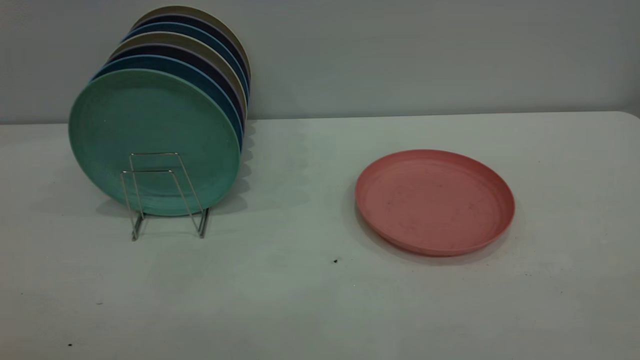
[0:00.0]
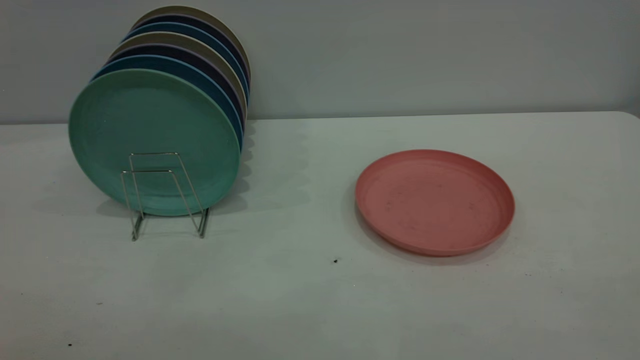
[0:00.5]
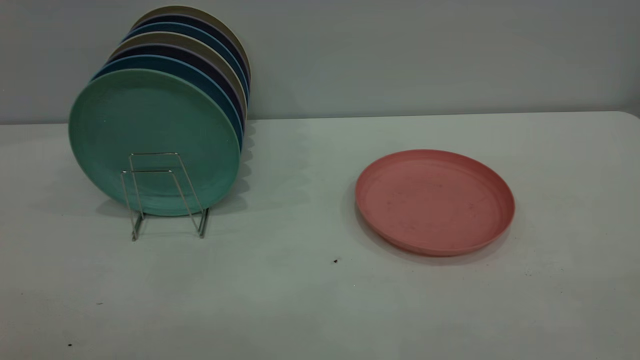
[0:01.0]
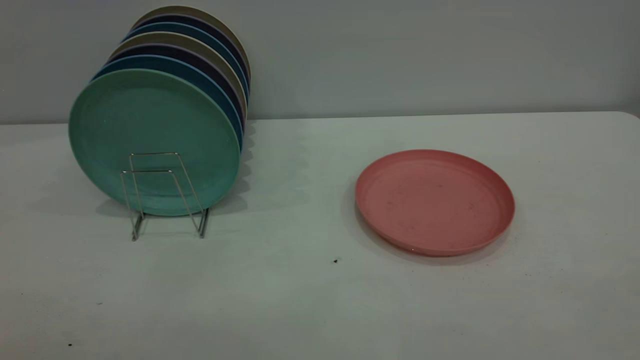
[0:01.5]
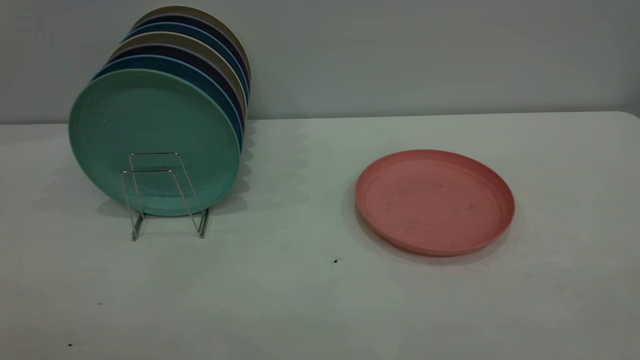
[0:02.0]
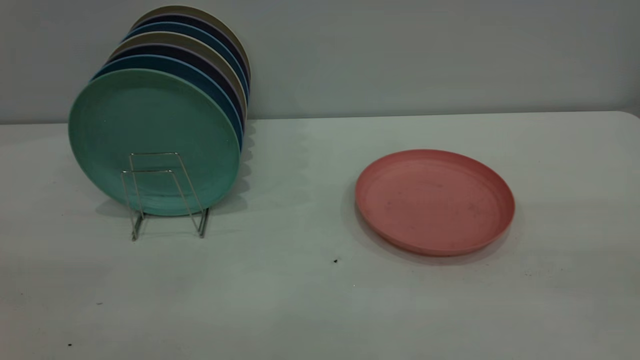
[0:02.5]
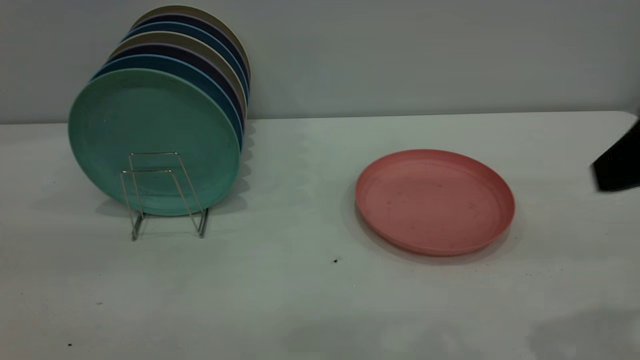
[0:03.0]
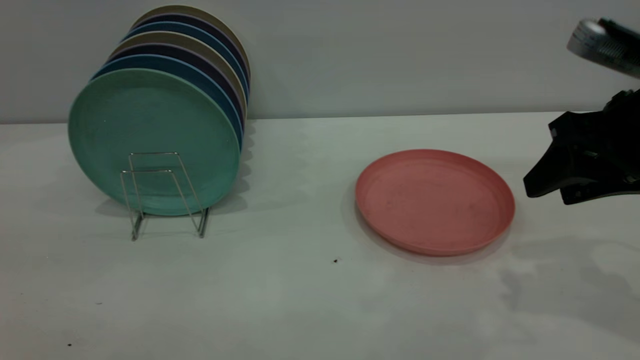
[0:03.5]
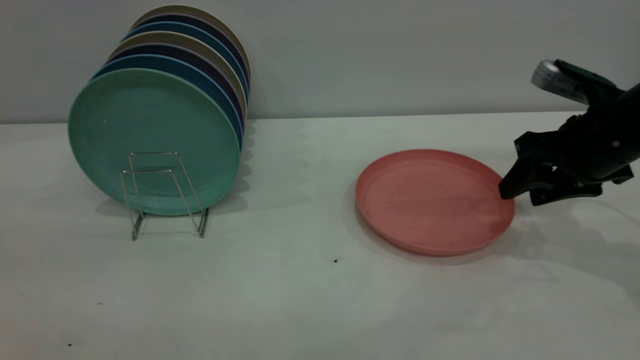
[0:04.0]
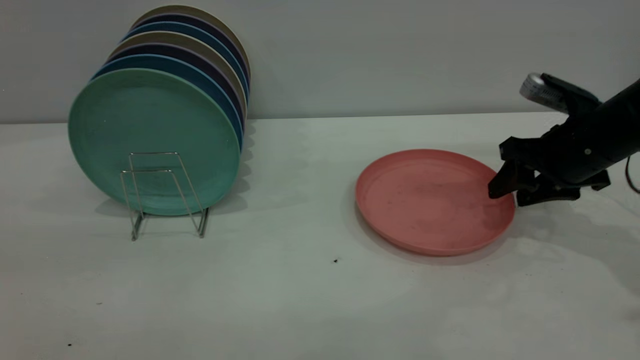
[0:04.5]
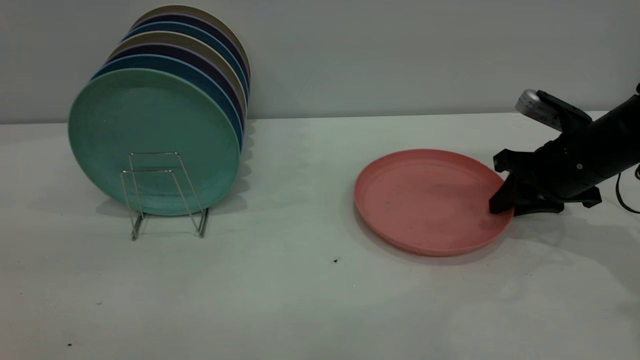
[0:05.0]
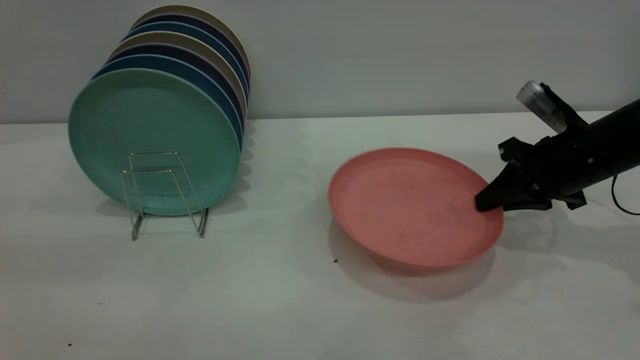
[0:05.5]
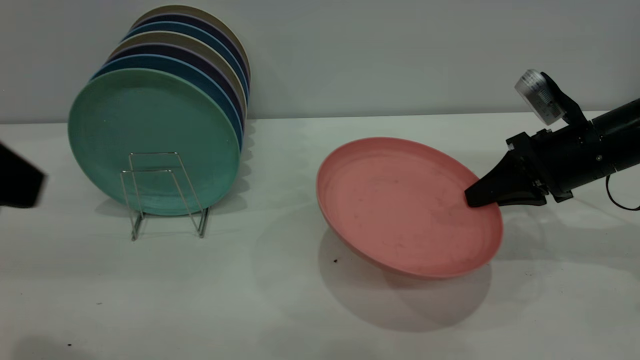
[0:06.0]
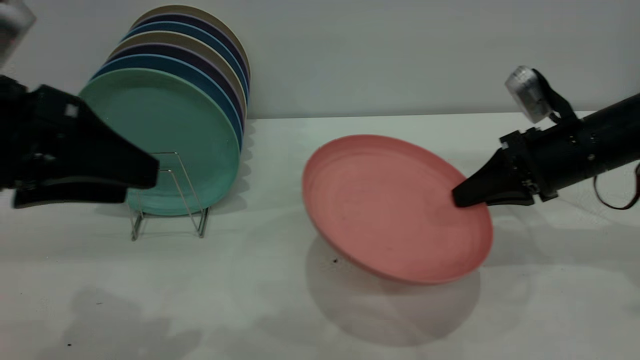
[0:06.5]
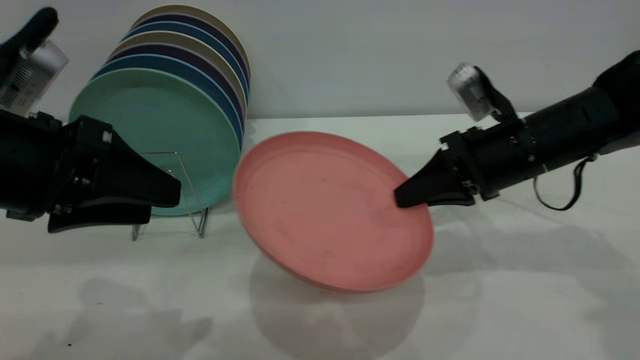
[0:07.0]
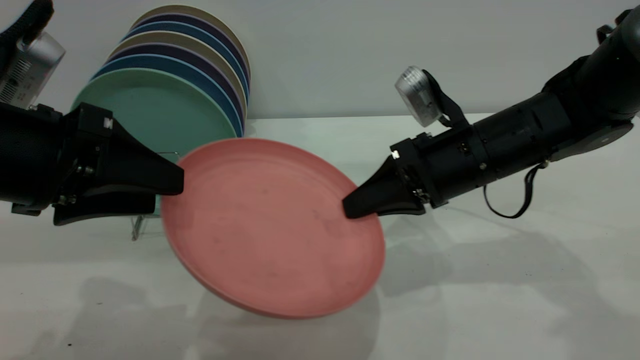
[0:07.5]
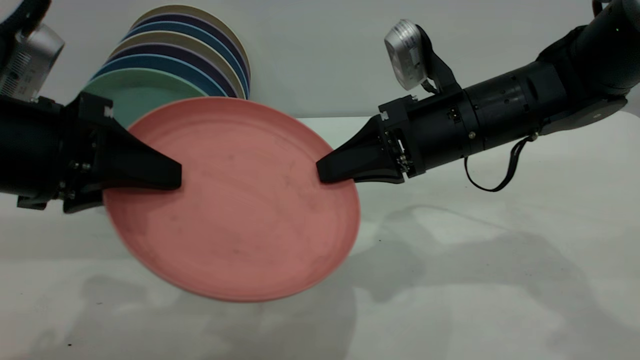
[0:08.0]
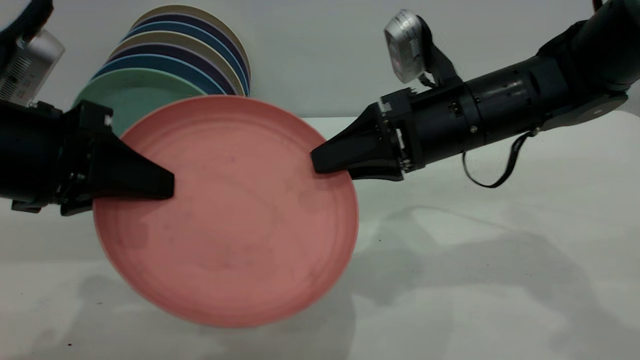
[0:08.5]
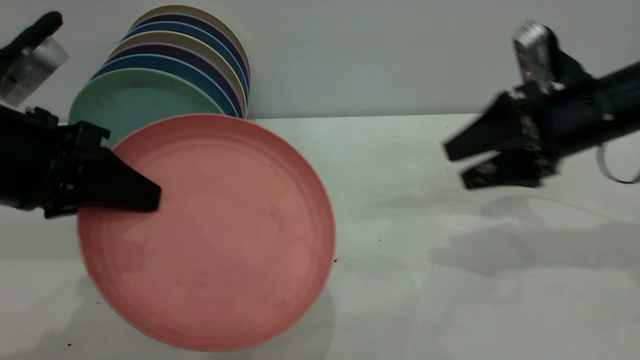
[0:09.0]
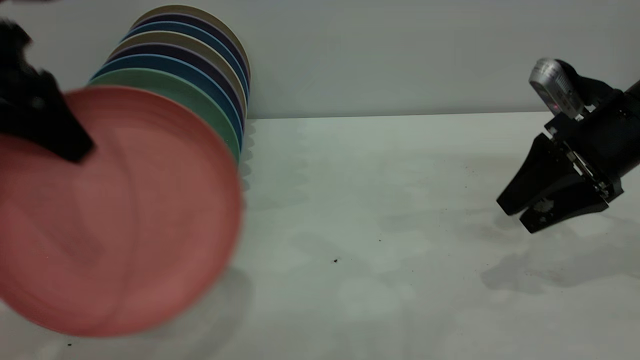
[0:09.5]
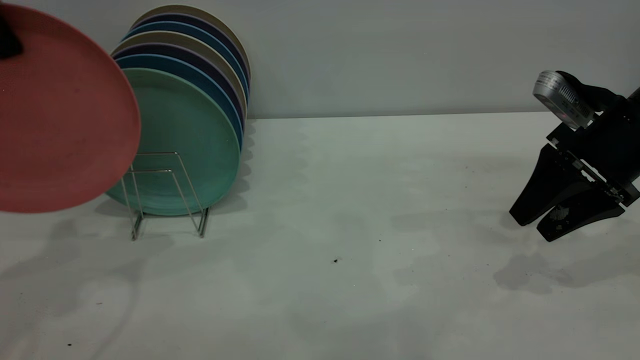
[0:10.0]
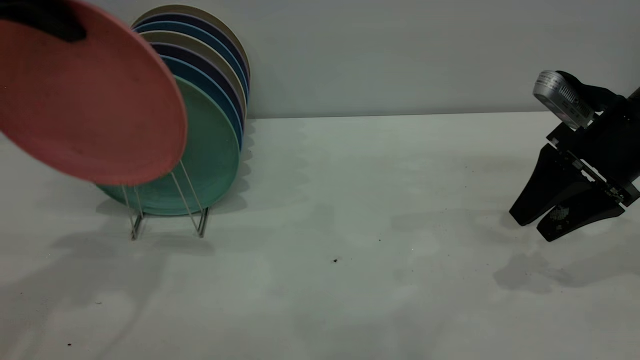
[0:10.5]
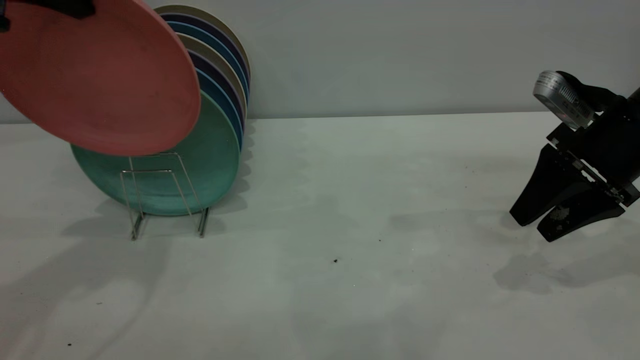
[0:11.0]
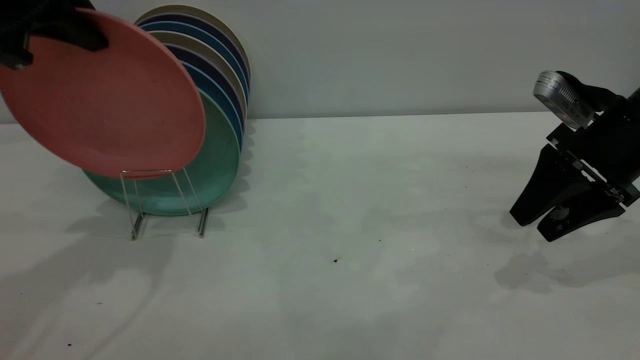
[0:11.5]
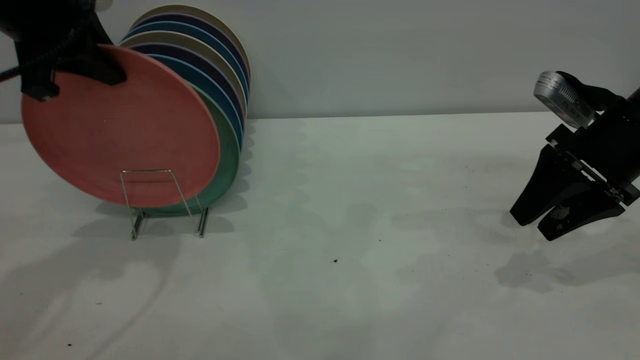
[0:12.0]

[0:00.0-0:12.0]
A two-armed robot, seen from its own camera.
Task of the whole recording: the right gripper grasp the pink plate, the right gripper pass the pink plate to the left gripper, and the left gripper place the pink plate on the plate rack.
Step, 0:00.0 to 0:06.0: Pick up the plate with the right gripper.
Step, 0:06.5 to 0:10.5: Pass the plate from the right gripper to the left gripper.
0:02.0 to 0:04.0: The right gripper is displaced forward and downward by approximately 40 cm.
0:04.0 to 0:06.0: The left gripper moves downward, some 5 cm. The right gripper closes.
0:06.0 to 0:08.0: The left gripper moves downward and forward, about 10 cm, and closes, while the right gripper is displaced to the left by roughly 15 cm.
0:08.0 to 0:10.0: The right gripper goes some 15 cm to the right, and opens, while the left gripper goes about 15 cm upward and forward.
0:10.0 to 0:12.0: The left gripper heads downward, covering some 5 cm.

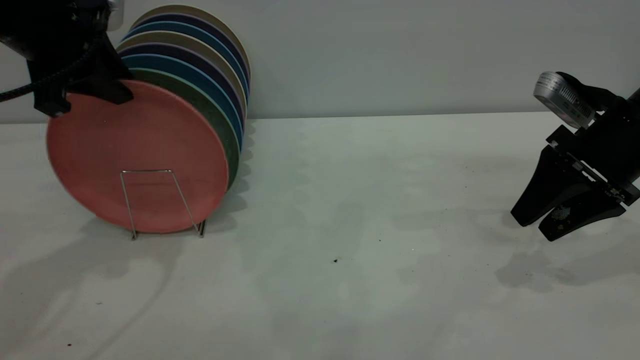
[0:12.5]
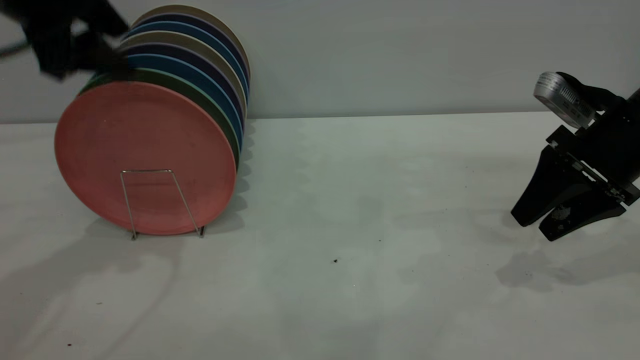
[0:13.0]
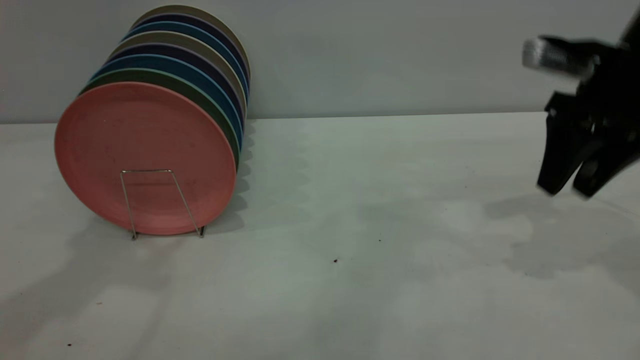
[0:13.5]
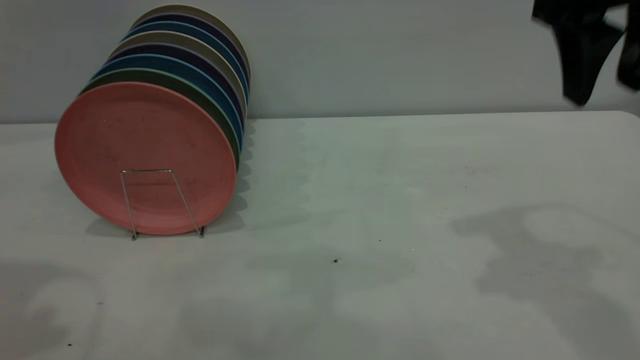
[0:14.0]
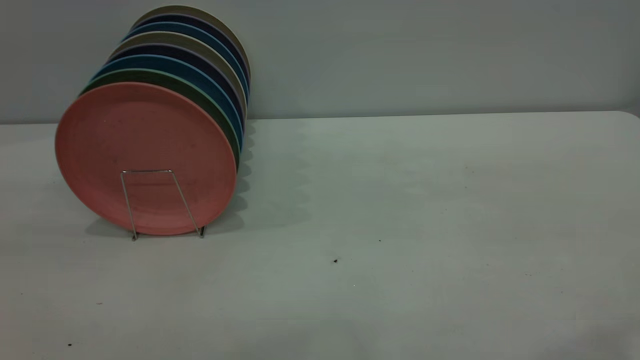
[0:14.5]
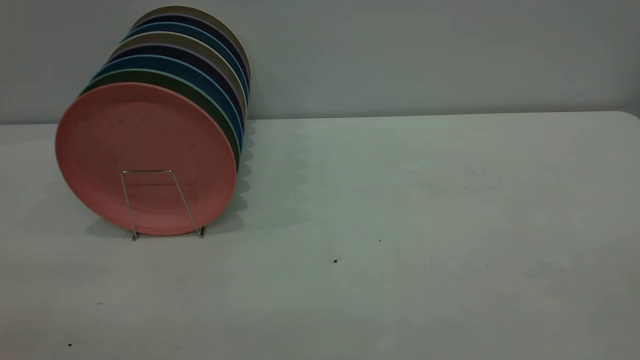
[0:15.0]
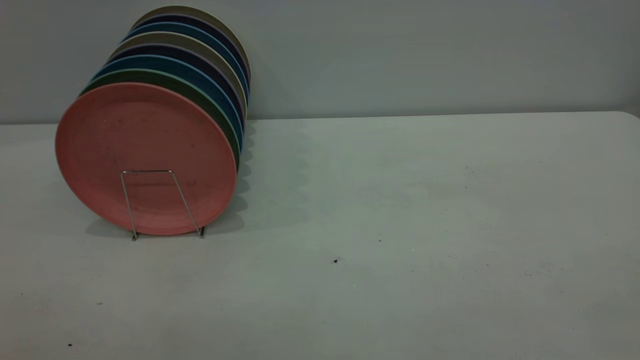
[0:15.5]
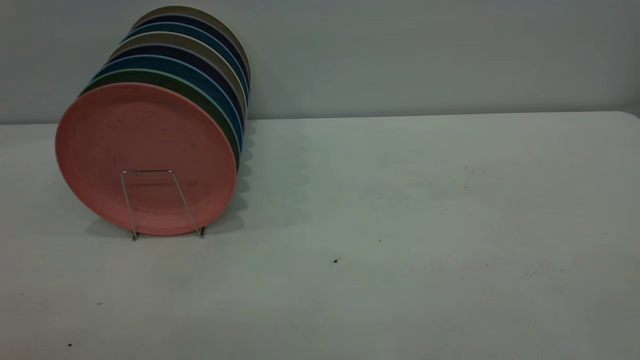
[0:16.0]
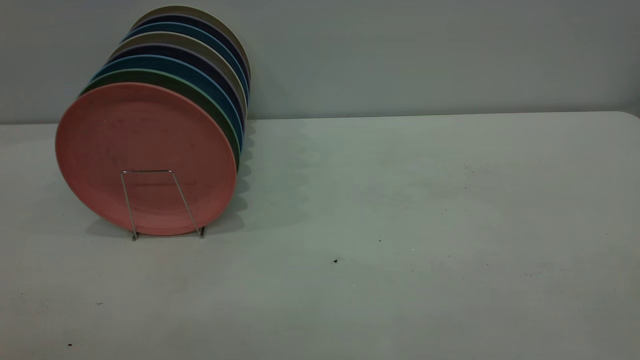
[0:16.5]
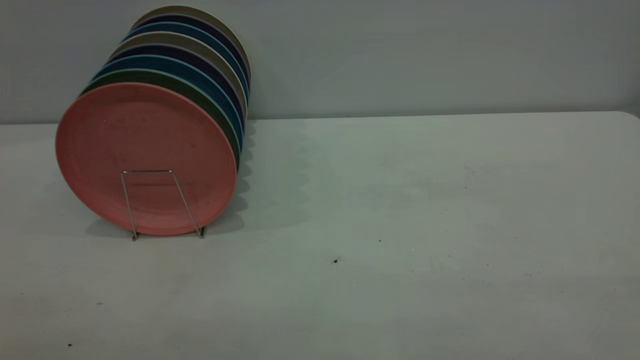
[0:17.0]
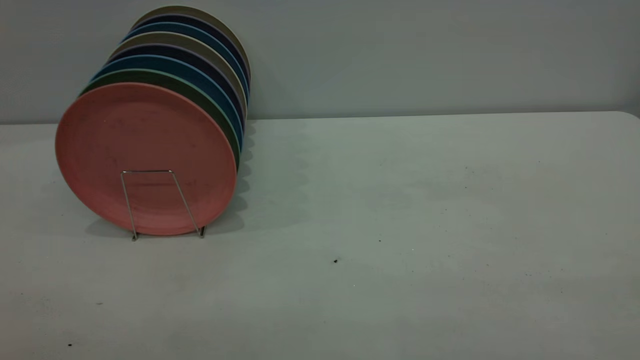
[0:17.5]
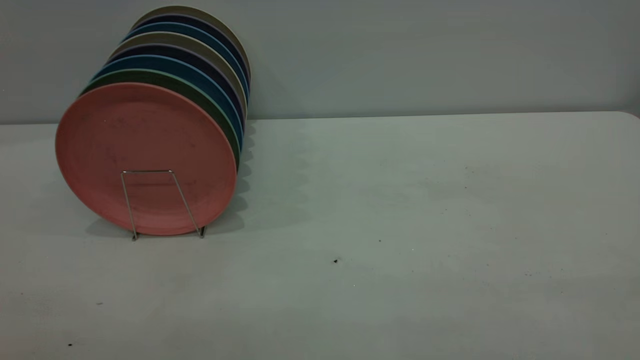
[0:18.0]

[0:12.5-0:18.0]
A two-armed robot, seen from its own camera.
Task of the whole recording: the right gripper grasp the pink plate, the right gripper pass the pink plate to the left gripper, and the left gripper place the pink plate on the plate rack.
0:12.5 to 0:14.5: The left gripper heads backward and upward, covering some 35 cm, and opens. Meanwhile the right gripper is displaced upward and backward by approximately 30 cm.
